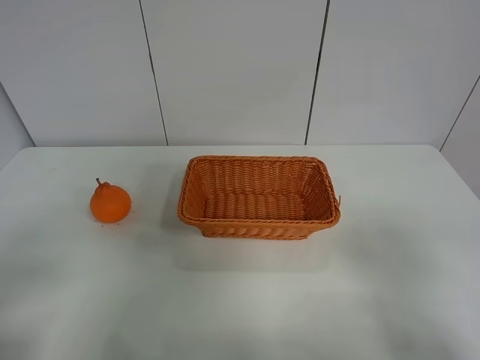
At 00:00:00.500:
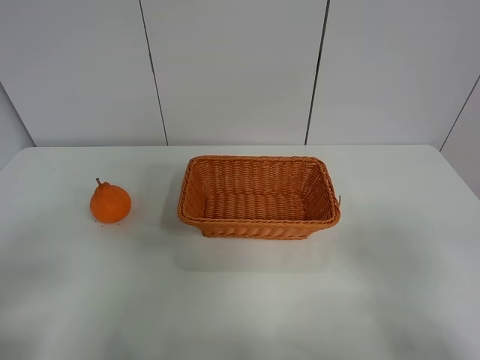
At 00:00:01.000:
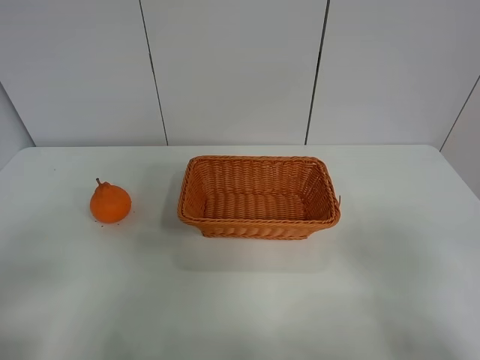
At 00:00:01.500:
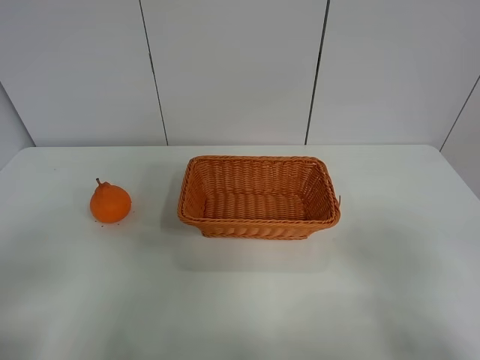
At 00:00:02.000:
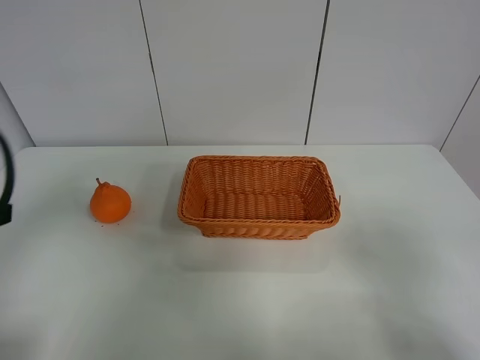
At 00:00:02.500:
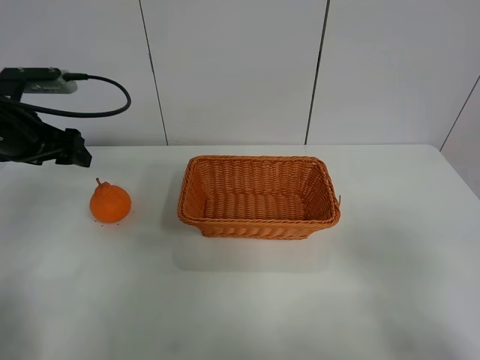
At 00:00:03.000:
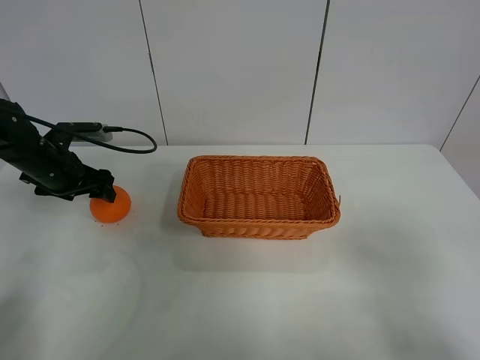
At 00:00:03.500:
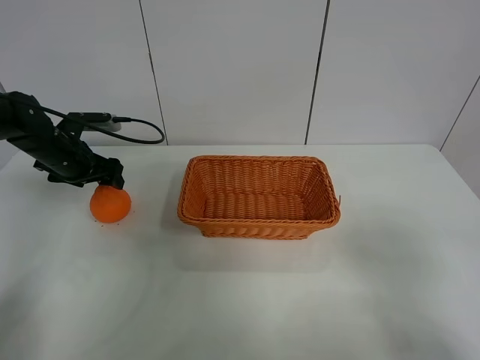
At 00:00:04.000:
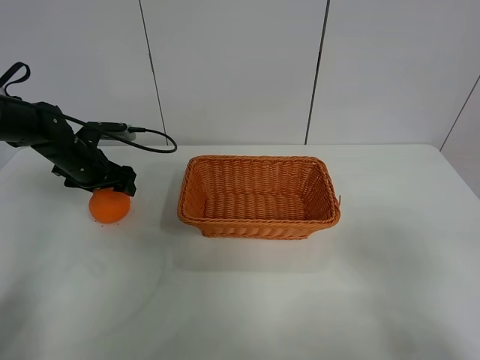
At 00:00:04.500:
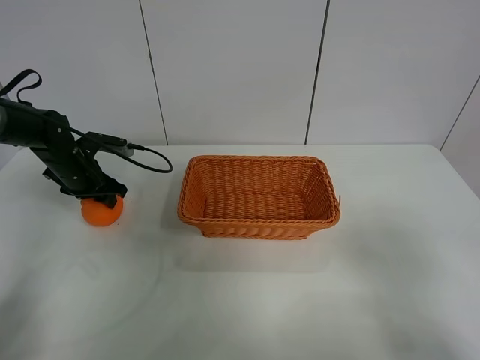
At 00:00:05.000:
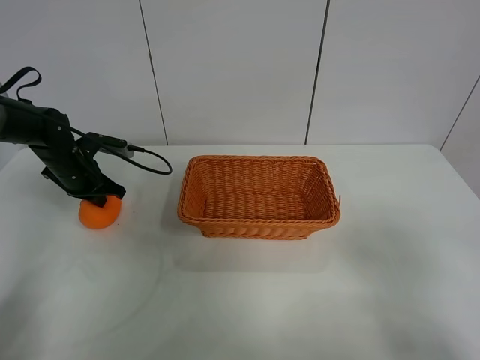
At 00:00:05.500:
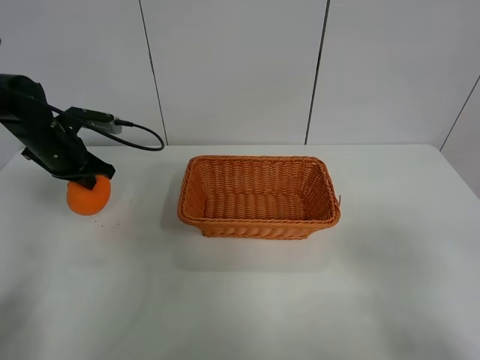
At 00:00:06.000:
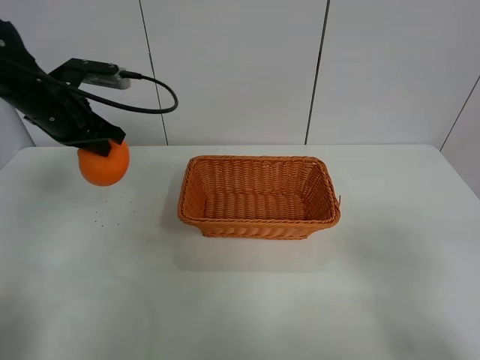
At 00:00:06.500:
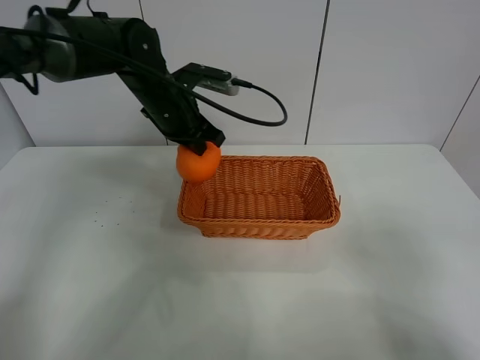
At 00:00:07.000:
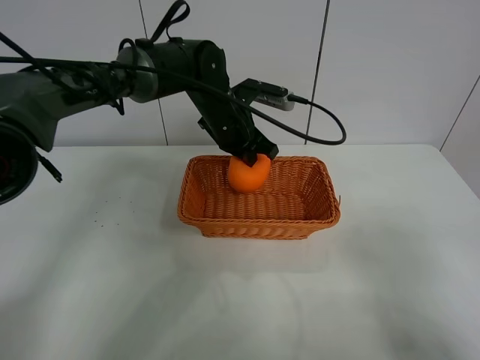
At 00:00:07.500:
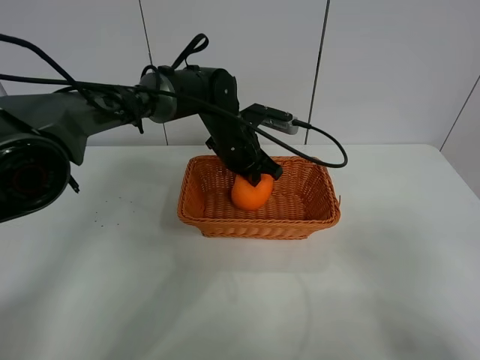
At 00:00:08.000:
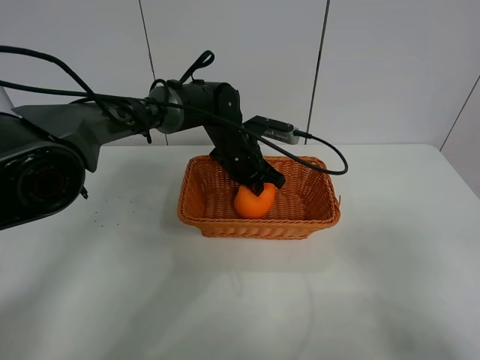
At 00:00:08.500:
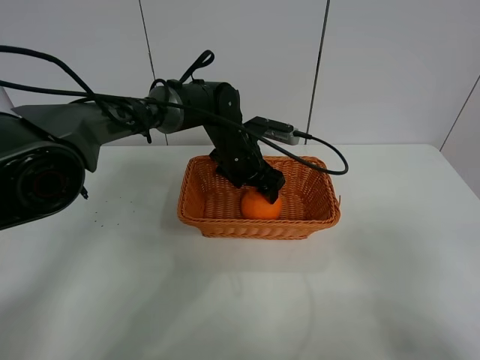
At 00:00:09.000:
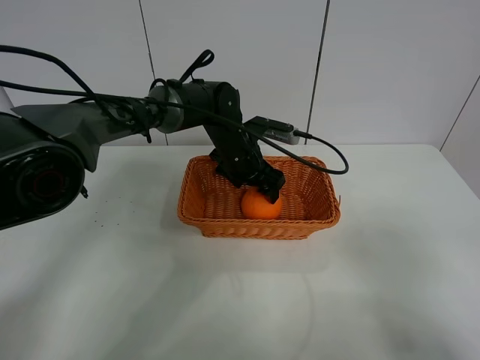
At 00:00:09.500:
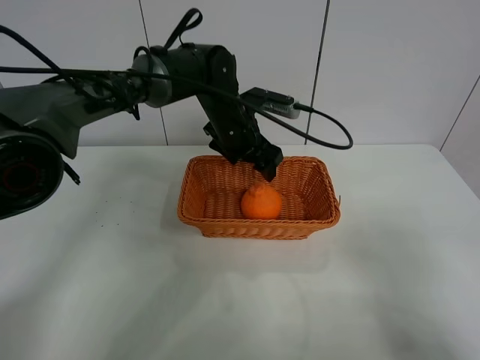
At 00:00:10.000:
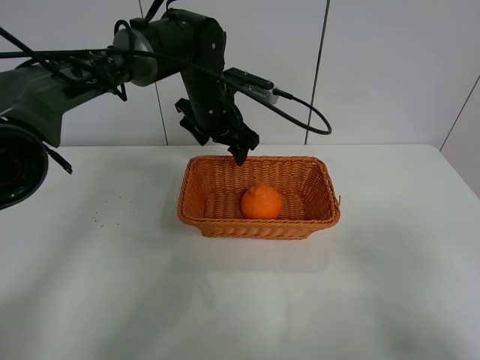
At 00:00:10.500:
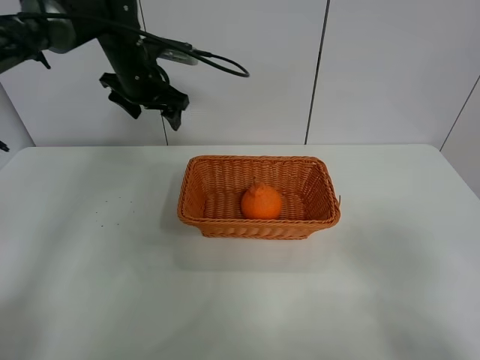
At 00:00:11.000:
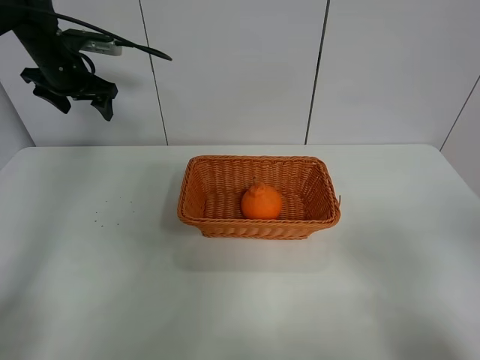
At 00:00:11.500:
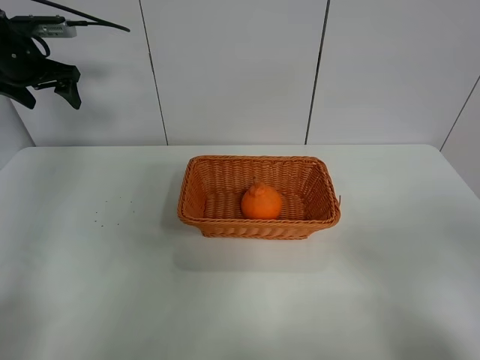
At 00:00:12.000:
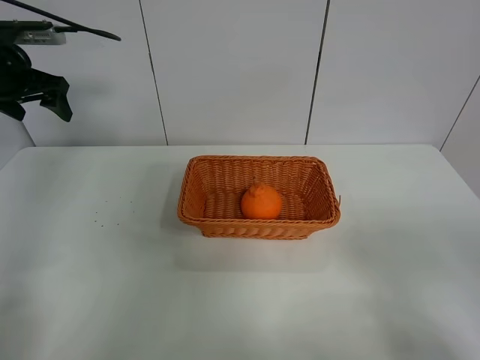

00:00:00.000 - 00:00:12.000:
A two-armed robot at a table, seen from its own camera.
Task of the whole recording: left gripper grabs oranges and puts them in the basket.
Step, 00:00:00.000 - 00:00:04.500: Grasp the orange with left gripper.
Step, 00:00:05.000 - 00:00:10.000: Place the orange in the basket with left gripper.
00:00:00.000 - 00:00:02.000: The left gripper moves forward, roughly 15 cm.
00:00:02.000 - 00:00:04.000: The left gripper moves forward and downward, roughly 30 cm.
00:00:04.000 - 00:00:06.000: The left gripper travels upward by roughly 15 cm, and closes up.
00:00:06.000 - 00:00:08.000: The left gripper travels to the right and downward by roughly 25 cm.
00:00:08.000 - 00:00:10.000: The left gripper moves upward, approximately 10 cm, and opens up.
00:00:10.000 - 00:00:12.000: The left gripper heads to the left, covering about 30 cm.

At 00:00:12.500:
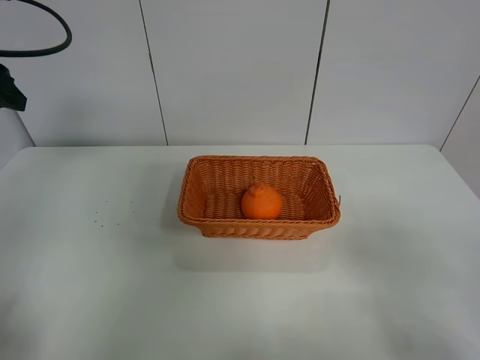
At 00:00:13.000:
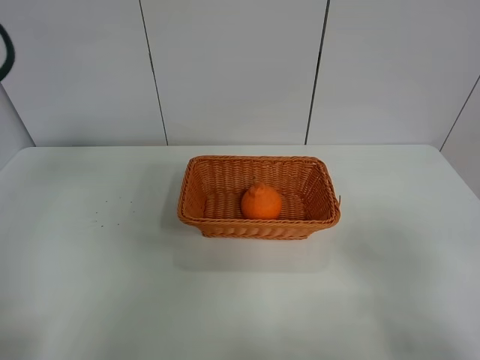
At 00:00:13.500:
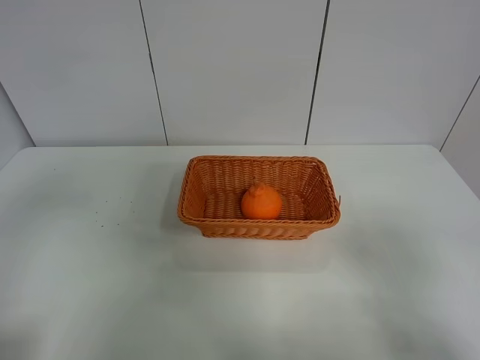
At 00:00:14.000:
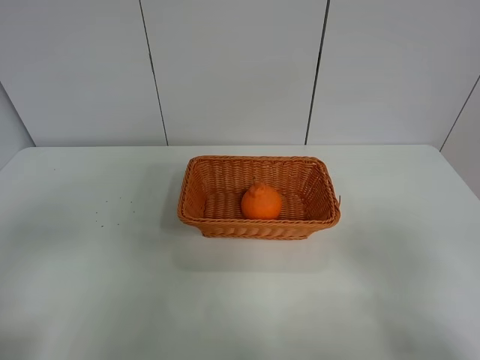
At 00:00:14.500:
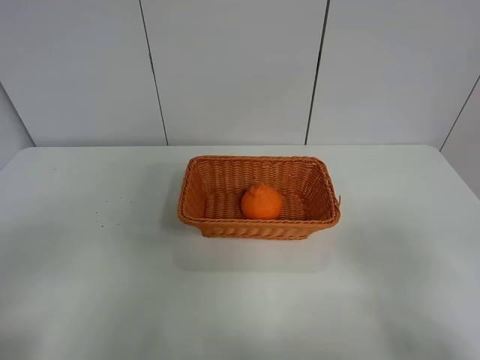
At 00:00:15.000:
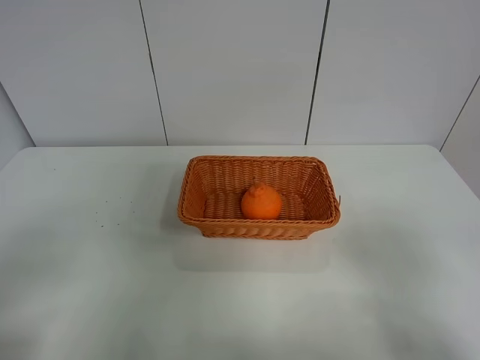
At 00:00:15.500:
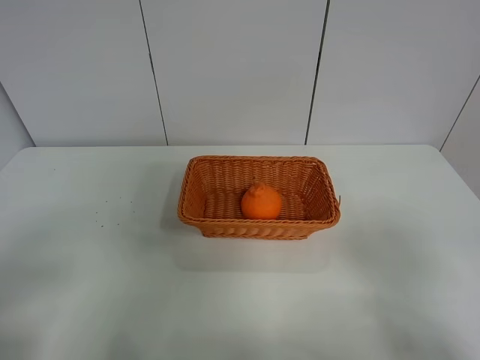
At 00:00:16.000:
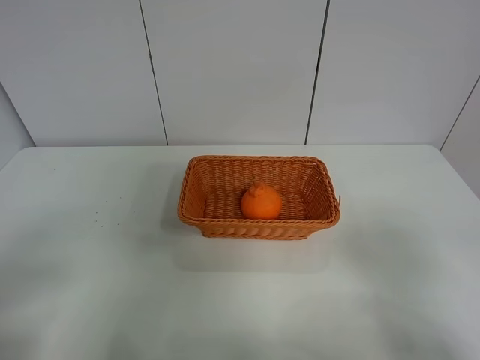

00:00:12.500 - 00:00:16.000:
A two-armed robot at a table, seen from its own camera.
Task of the whole recording: left gripper grabs oranges and puts them in the basket.
00:00:12.500 - 00:00:14.500: The left gripper heads backward, covering some 30 cm.
